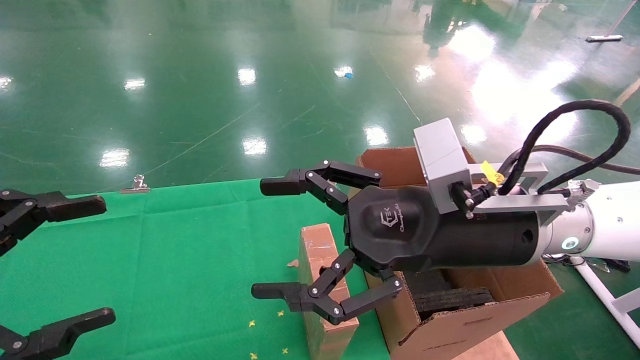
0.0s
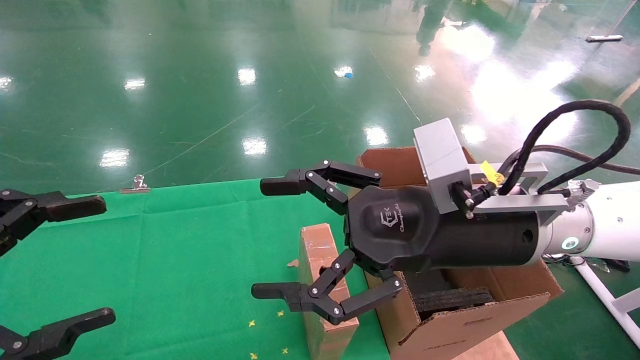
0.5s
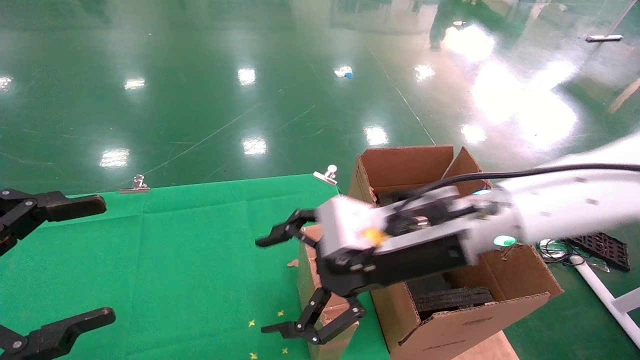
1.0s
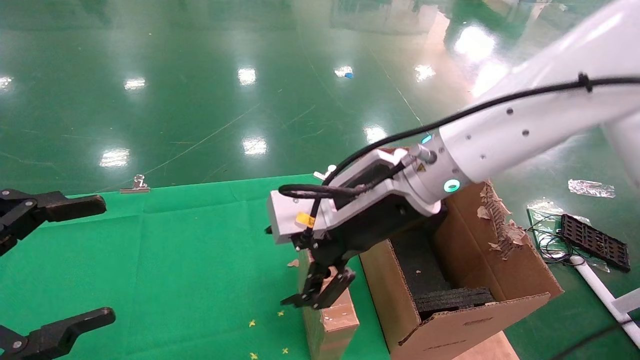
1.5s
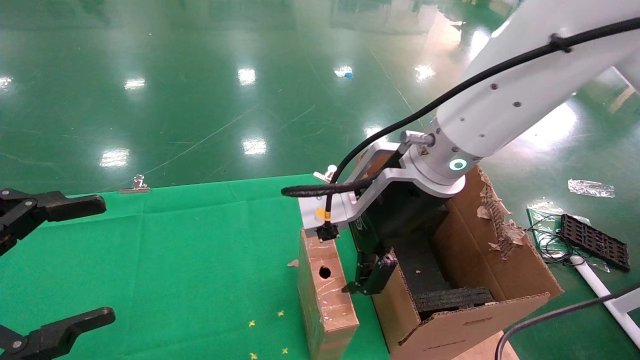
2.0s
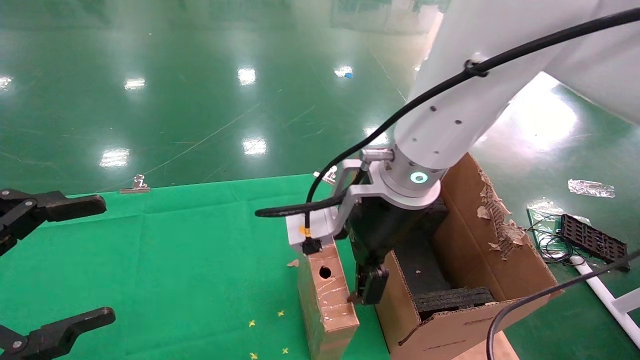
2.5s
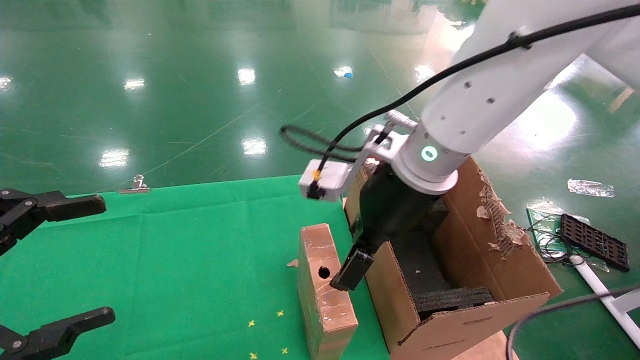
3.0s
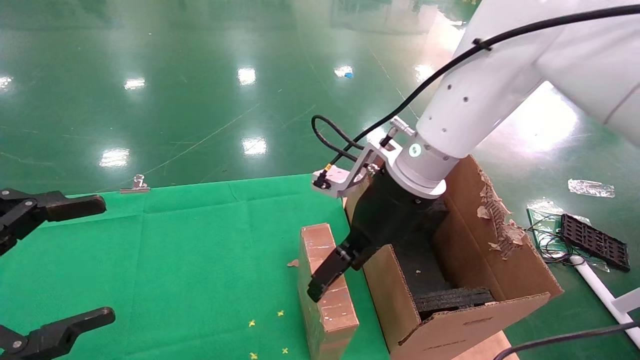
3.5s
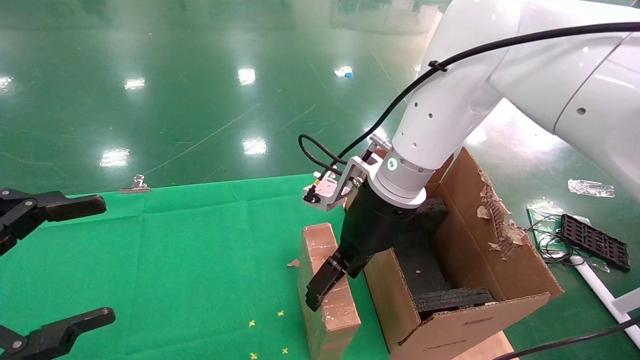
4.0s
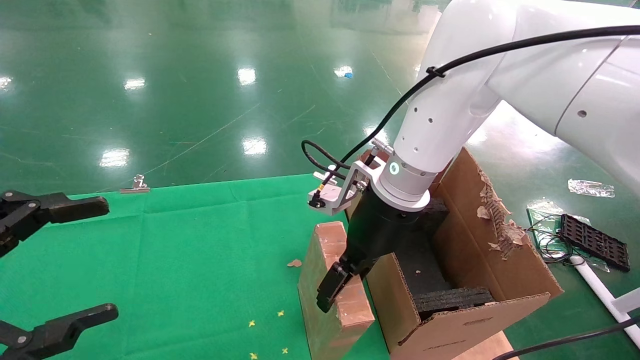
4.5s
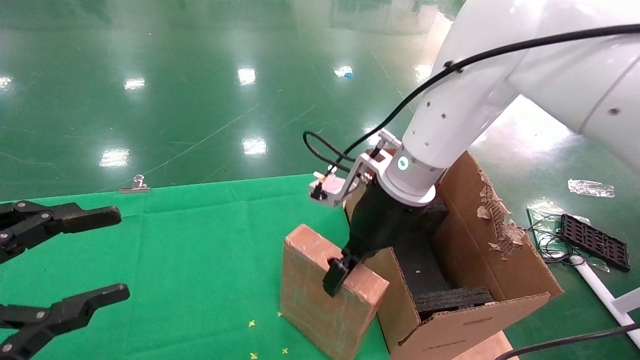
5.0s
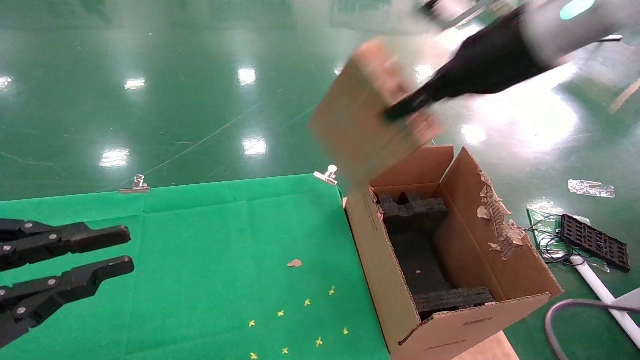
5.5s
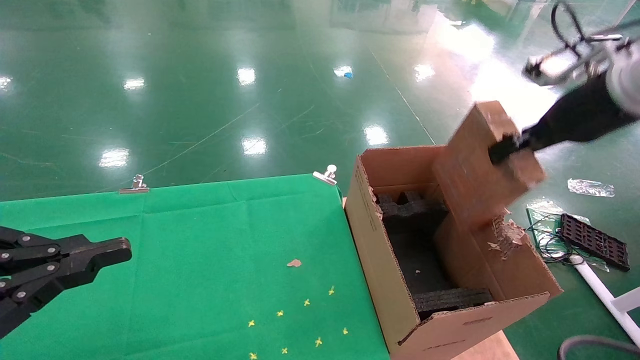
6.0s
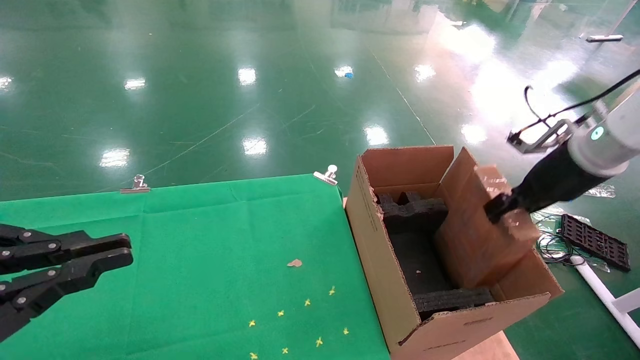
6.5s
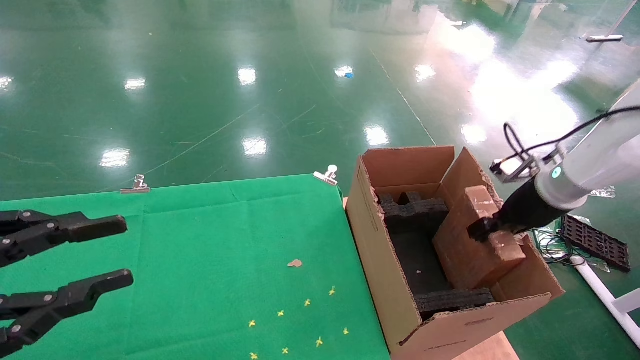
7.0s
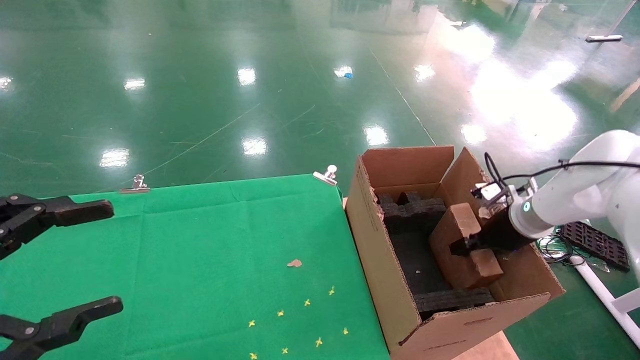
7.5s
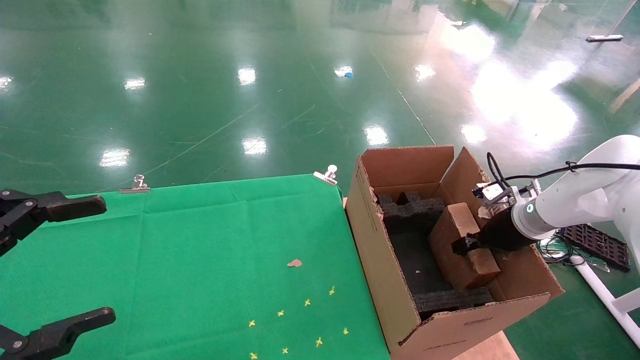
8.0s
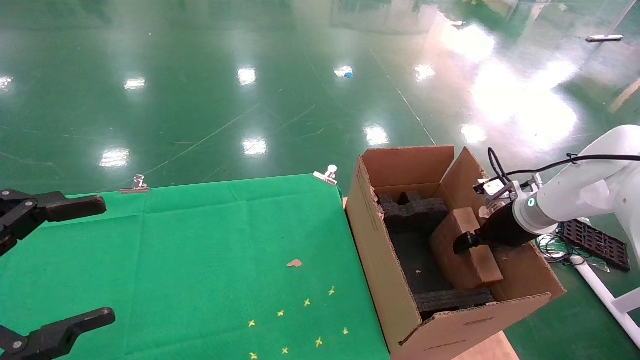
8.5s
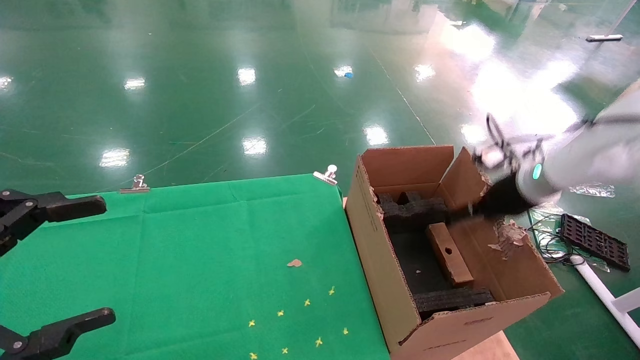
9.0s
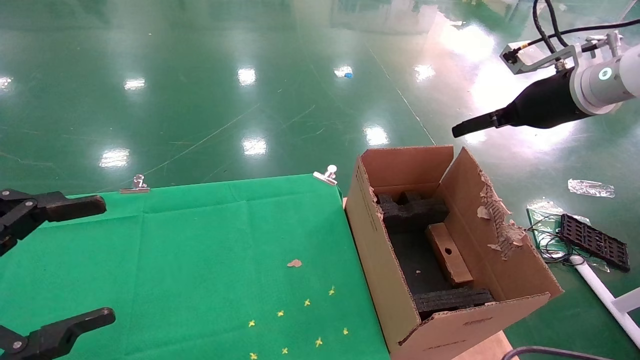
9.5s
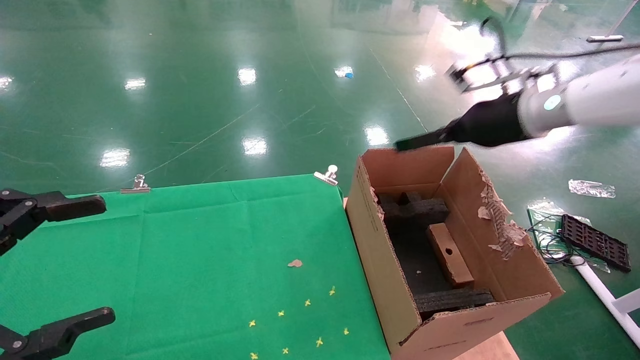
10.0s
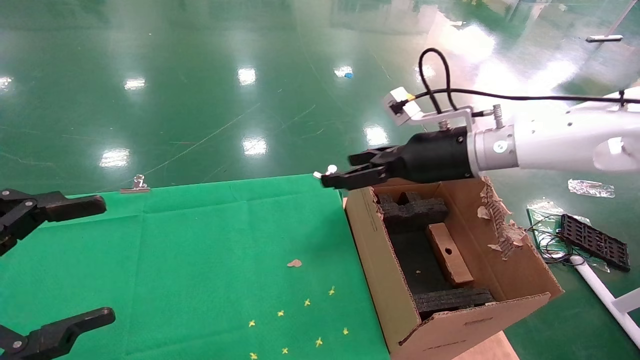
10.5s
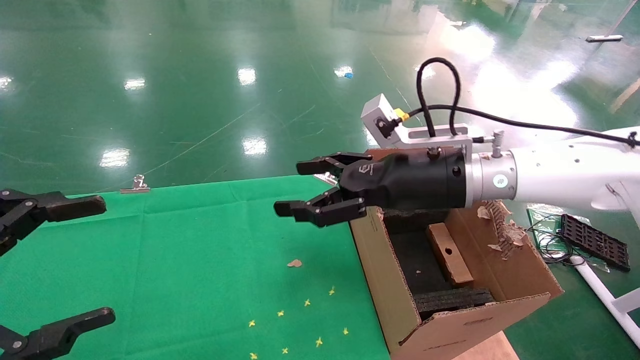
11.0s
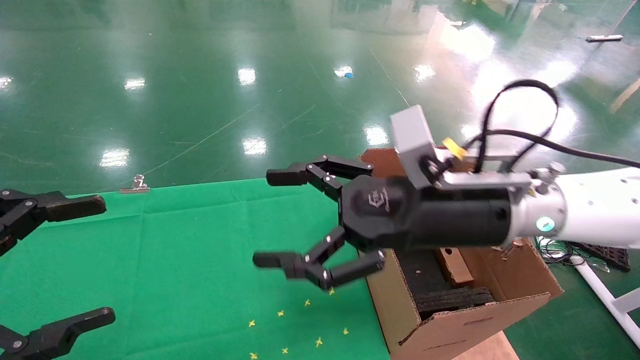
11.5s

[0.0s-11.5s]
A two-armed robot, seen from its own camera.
Task of the whole recording: using a robotic arm to pick up a cardboard box and palace it the carton.
Step, 1.0s to 5.0s: Pick up the mouse and the power cord paper box.
Step, 5.5s to 9.0s: Place the mouse and the power cord paper box into the container.
0.0s to 2.0s: The right gripper goes about 10 cm forward and to the left.
2.0s to 4.0s: The right gripper travels forward by about 5 cm.
4.0s to 6.0s: The right gripper travels to the right by about 25 cm, and closes up. Meanwhile the left gripper closes.
6.0s to 7.5s: The left gripper opens its fingers. The right gripper shifts approximately 20 cm downward.
7.5s to 9.5s: The right gripper is displaced upward by approximately 20 cm, and opens up.
9.5s to 11.5s: The right gripper is displaced to the left and backward by approximately 25 cm.

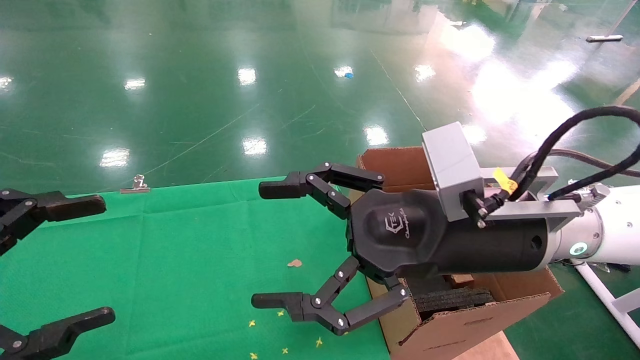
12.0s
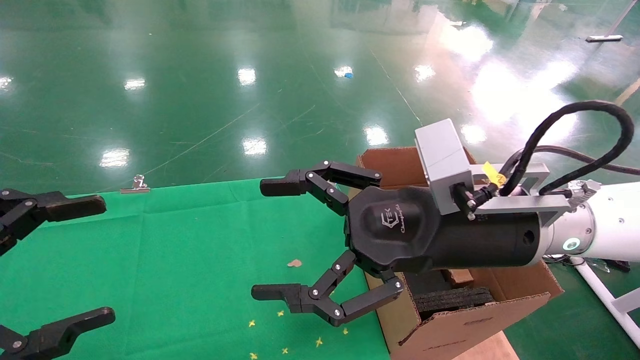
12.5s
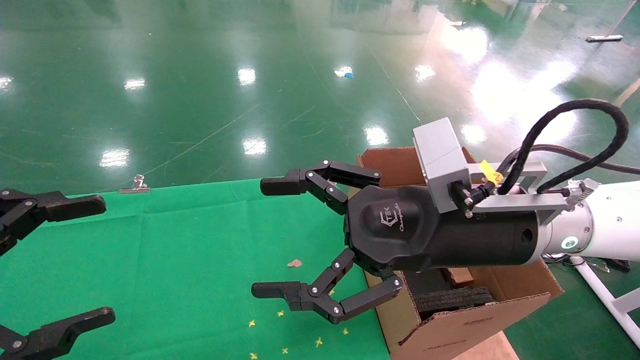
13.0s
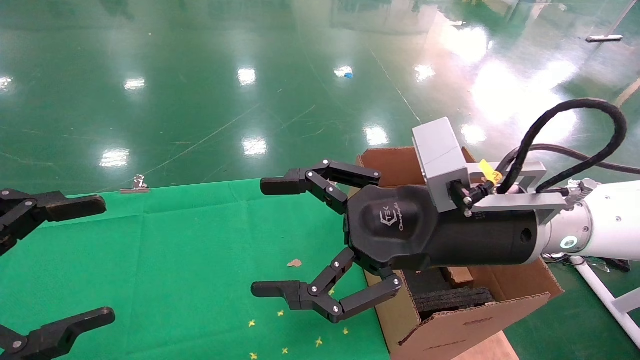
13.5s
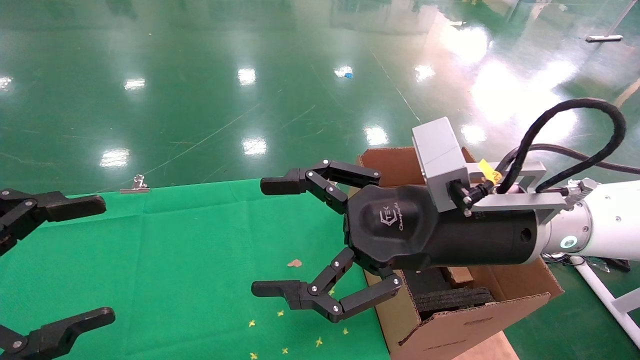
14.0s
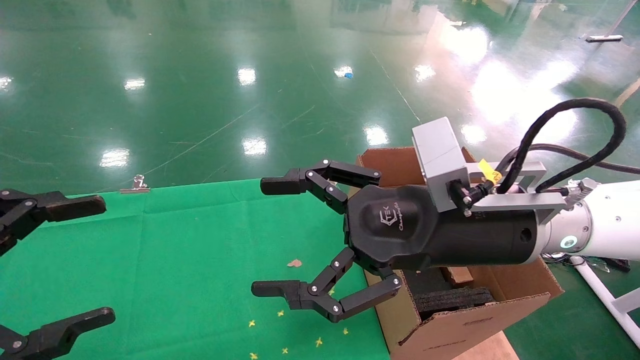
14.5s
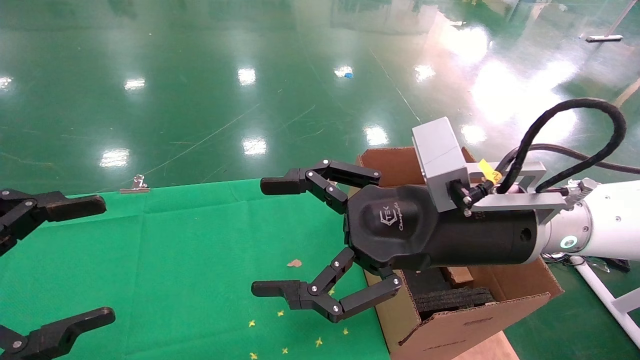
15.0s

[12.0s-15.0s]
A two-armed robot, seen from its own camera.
Task of the whole recording: using a robotic arm to pick up a cardboard box and palace it the carton.
12.0s to 15.0s: The two grippers keep their place.
